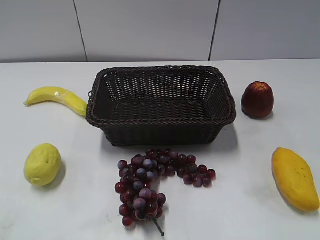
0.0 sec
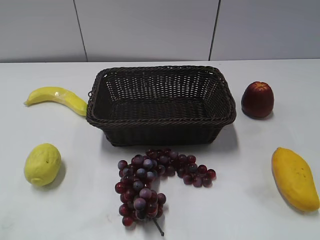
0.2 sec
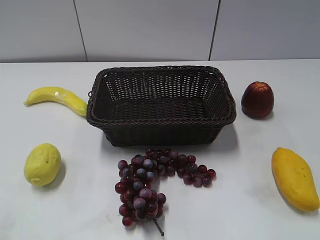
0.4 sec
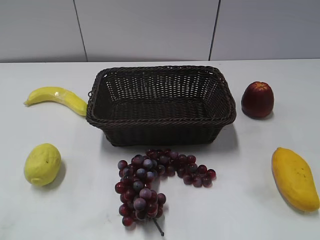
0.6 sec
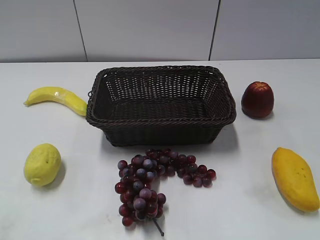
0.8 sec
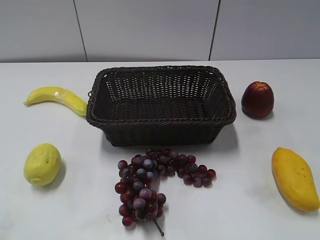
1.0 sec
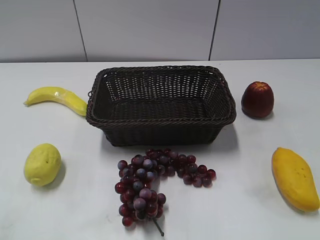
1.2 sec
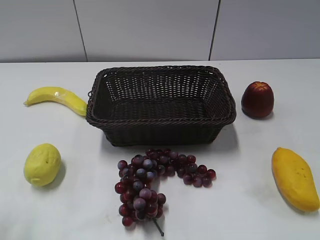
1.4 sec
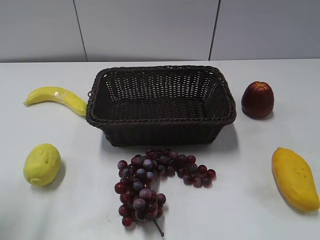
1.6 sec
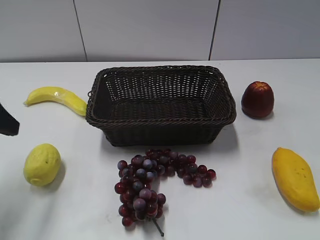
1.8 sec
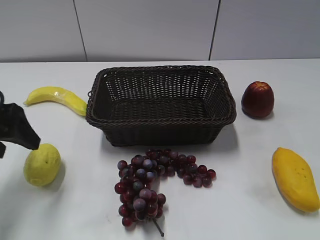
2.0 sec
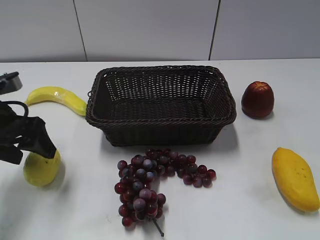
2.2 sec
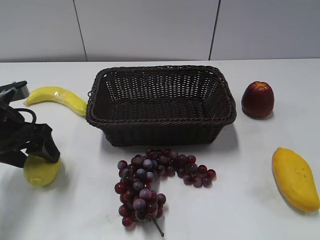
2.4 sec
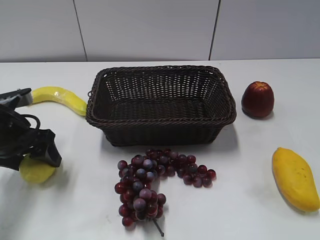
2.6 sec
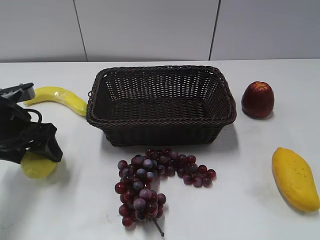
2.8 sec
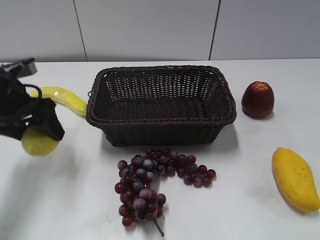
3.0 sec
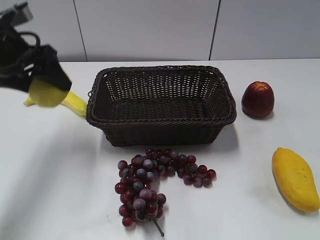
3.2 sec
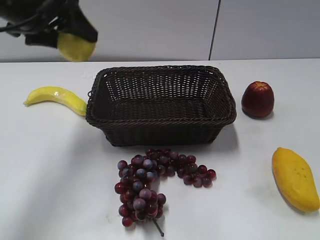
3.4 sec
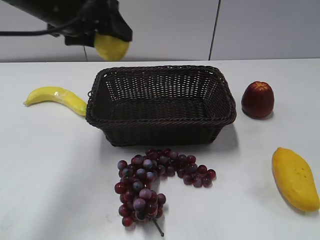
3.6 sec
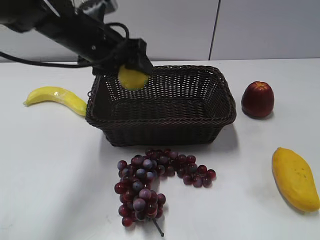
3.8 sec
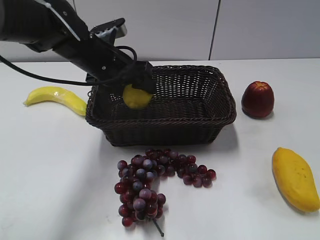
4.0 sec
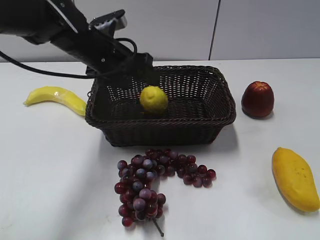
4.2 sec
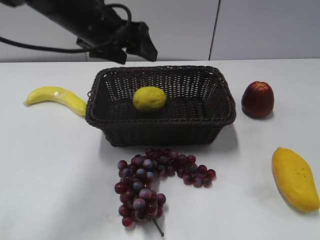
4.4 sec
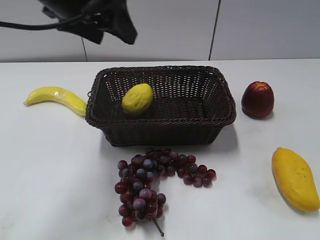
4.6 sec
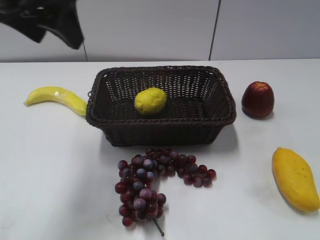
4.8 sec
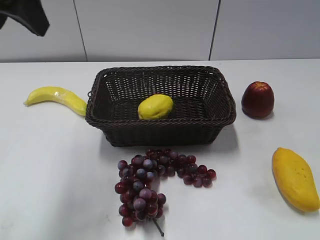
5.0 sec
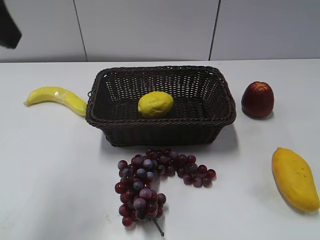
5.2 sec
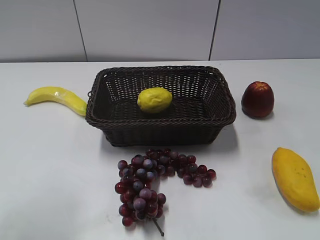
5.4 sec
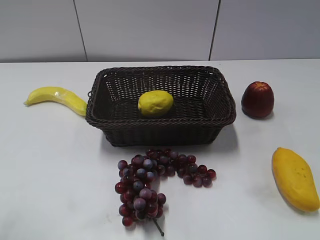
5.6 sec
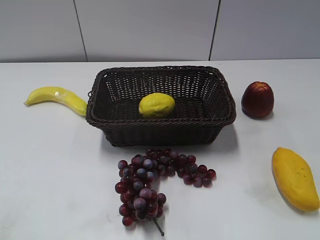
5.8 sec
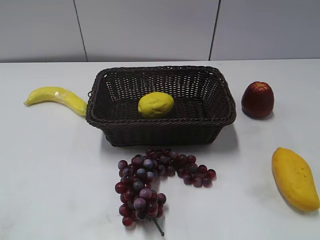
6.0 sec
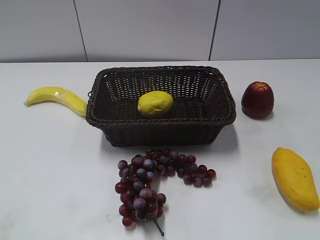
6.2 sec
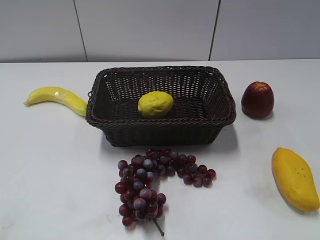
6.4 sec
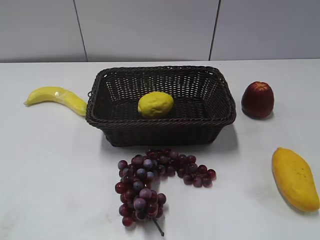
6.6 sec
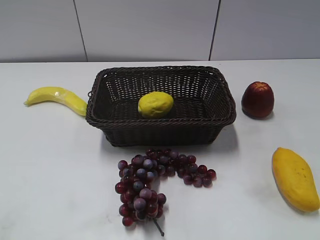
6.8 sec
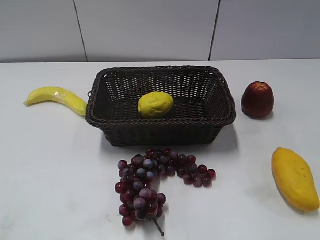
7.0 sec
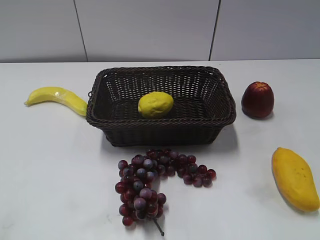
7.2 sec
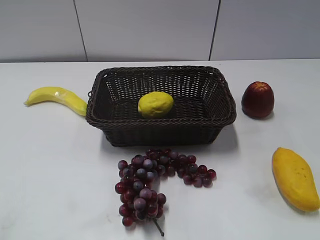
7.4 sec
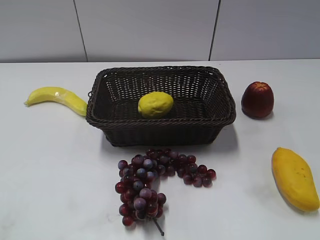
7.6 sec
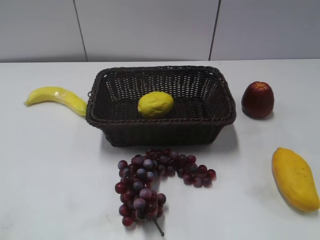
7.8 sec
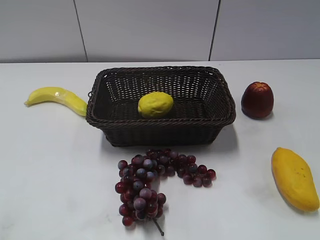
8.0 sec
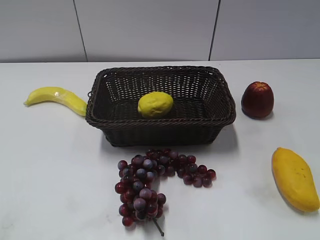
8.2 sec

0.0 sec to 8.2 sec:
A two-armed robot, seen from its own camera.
Step, 1.8 sec to 2.6 sec: Grasp the lemon with left gripper.
Step, 3.0 sec to 4.2 sec: Place the lemon in the basket with left gripper.
1.6 sec to 3.2 sec: The left gripper is displaced forward by about 20 cm, and closes.
3.2 sec to 5.0 sec: The left gripper swings up and down, roughly 20 cm each way, with 2 reversals, and opens, then closes once more.
5.0 sec to 6.6 sec: The left gripper is displaced backward, to the left and downward by approximately 30 cm.

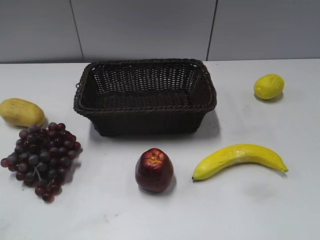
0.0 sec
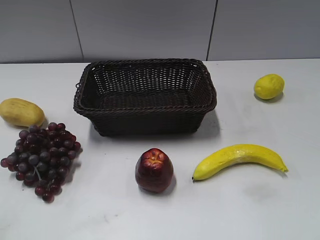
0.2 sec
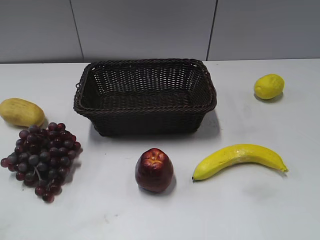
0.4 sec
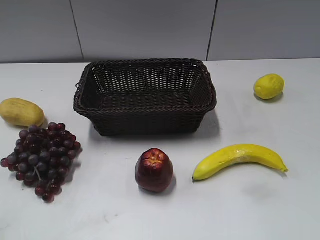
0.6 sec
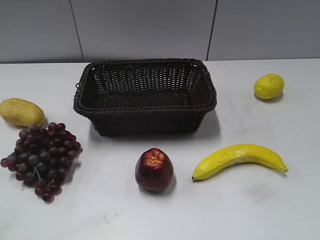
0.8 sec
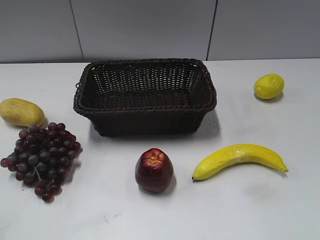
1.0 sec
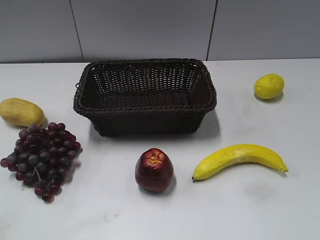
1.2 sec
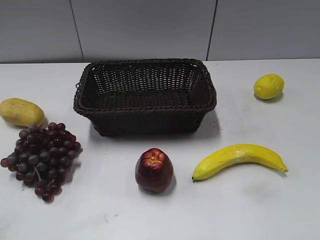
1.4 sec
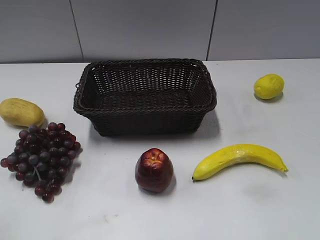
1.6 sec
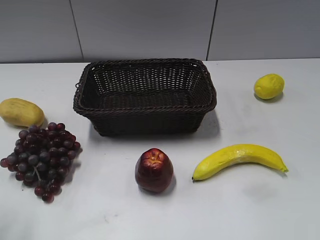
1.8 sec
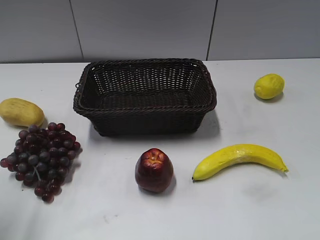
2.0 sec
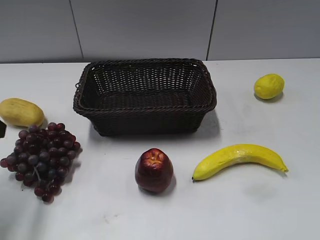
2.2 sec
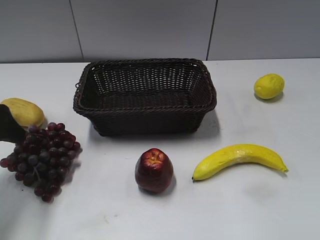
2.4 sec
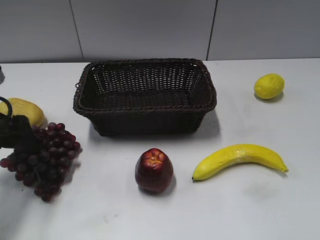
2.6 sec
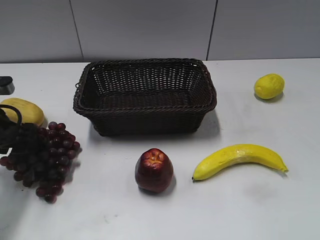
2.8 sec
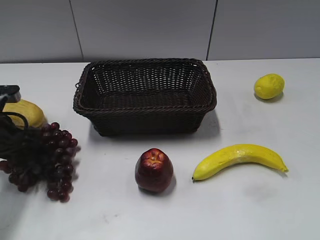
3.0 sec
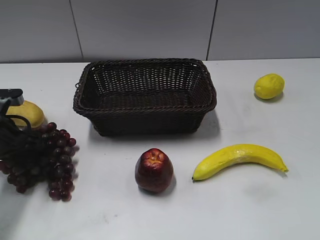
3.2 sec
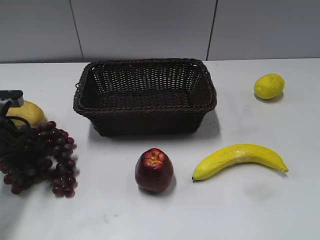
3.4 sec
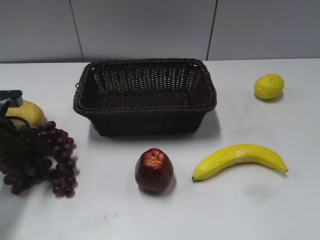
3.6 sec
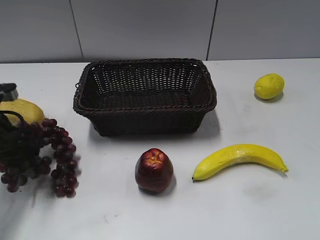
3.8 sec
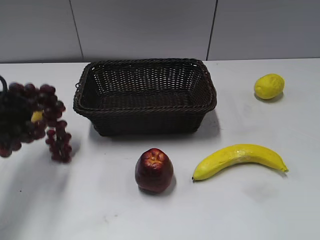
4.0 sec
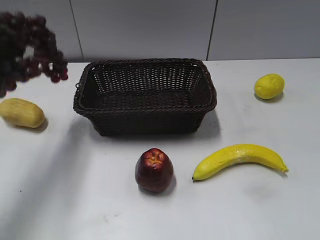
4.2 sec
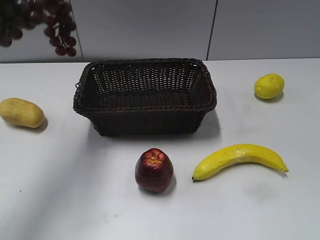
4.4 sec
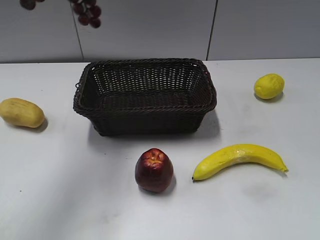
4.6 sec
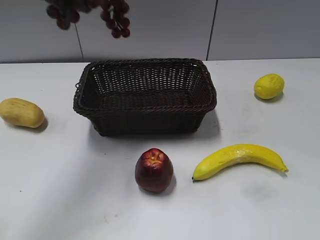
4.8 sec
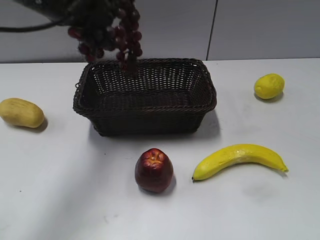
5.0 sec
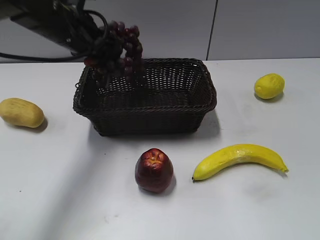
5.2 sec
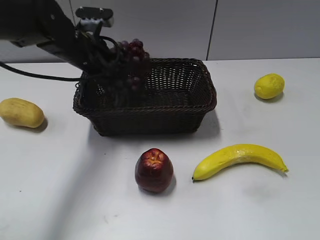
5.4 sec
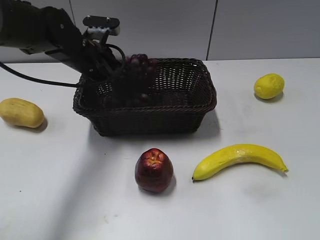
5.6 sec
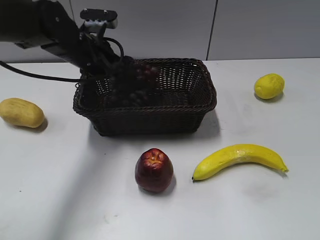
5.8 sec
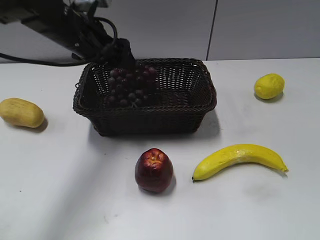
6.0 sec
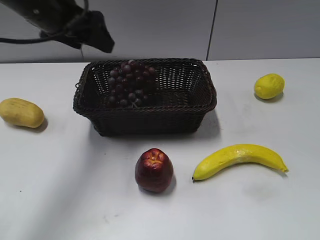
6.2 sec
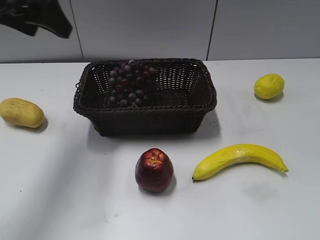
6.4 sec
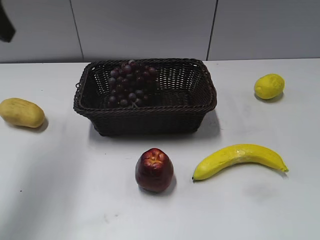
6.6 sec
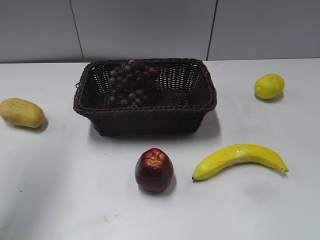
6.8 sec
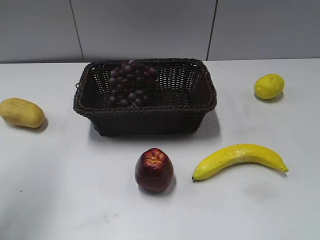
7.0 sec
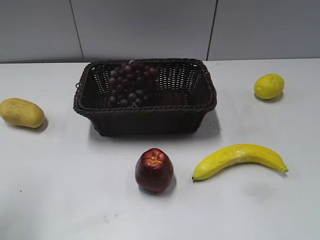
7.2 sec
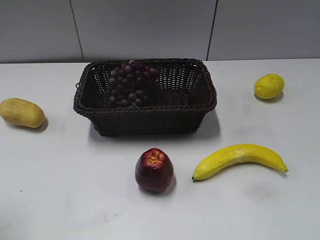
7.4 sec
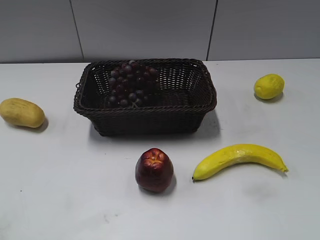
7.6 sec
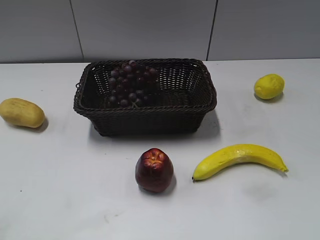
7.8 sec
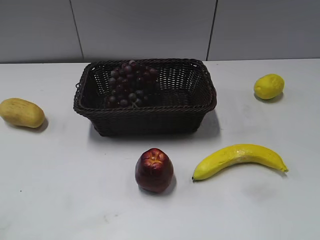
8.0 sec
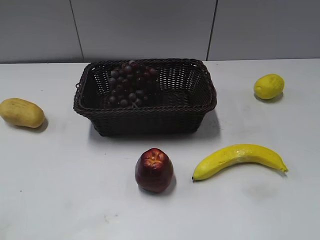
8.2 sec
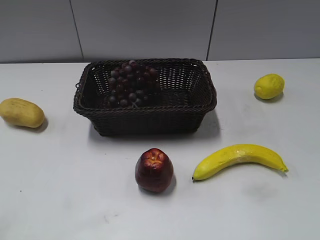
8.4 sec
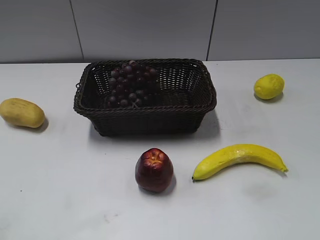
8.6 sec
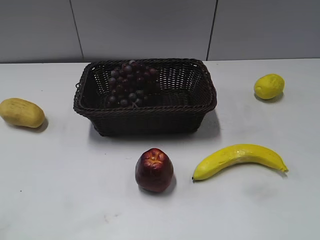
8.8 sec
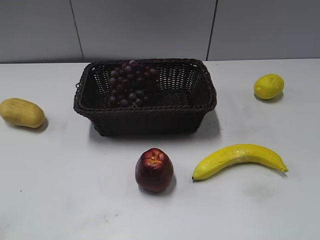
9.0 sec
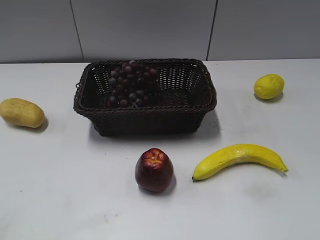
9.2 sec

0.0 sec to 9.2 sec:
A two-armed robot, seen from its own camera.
Step, 2.2 sec to 3.2 sec: Grasp the grape with left gripper.
Step, 3.4 sec to 5.8 sec: Place the grape in the basket with left gripper.
1.6 sec to 3.0 sec: The left gripper goes roughly 30 cm forward and downward.
3.0 sec to 4.6 sec: The left gripper heads upward, covering about 25 cm, and closes its fingers.
4.6 sec to 6.2 sec: The left gripper travels downward, forward and to the right by roughly 15 cm, and opens up.
6.2 sec to 7.6 sec: The left gripper moves backward and to the left, approximately 30 cm.
